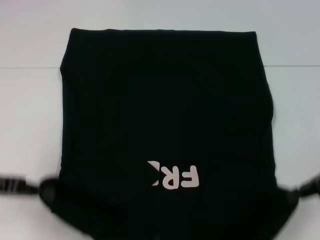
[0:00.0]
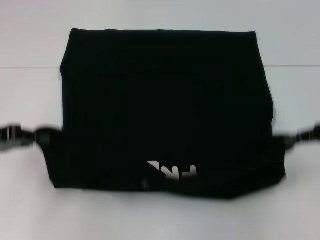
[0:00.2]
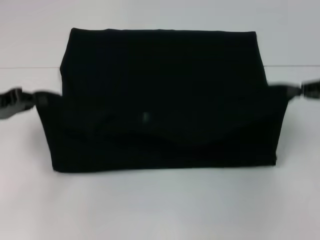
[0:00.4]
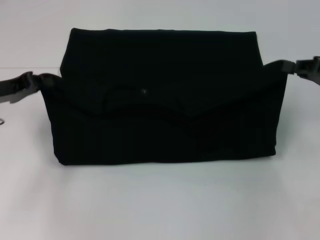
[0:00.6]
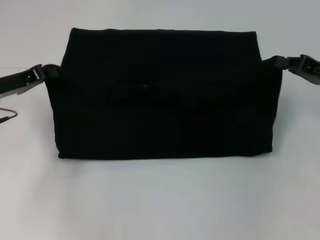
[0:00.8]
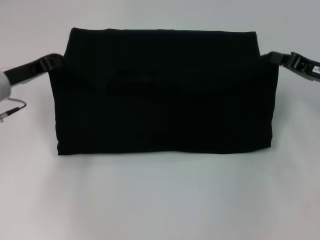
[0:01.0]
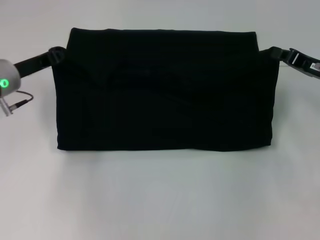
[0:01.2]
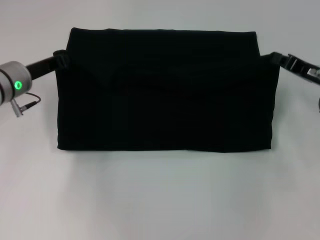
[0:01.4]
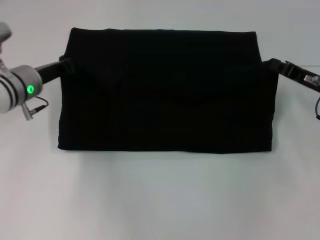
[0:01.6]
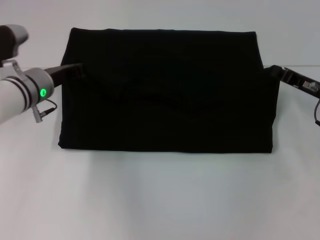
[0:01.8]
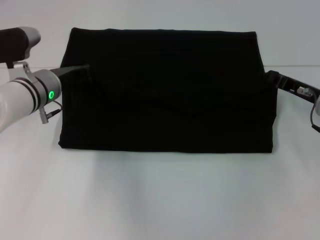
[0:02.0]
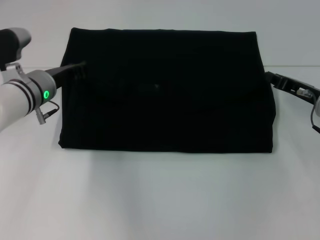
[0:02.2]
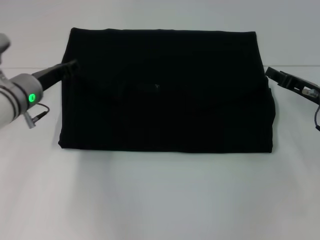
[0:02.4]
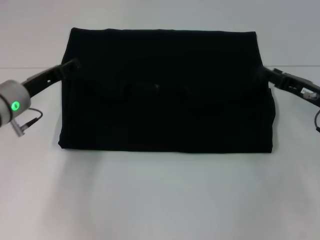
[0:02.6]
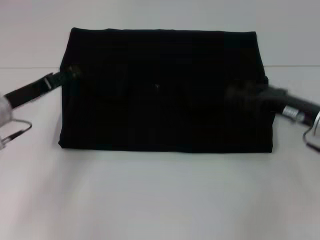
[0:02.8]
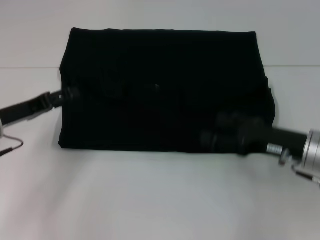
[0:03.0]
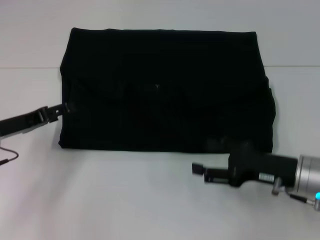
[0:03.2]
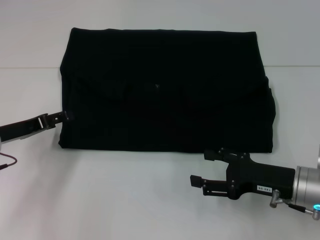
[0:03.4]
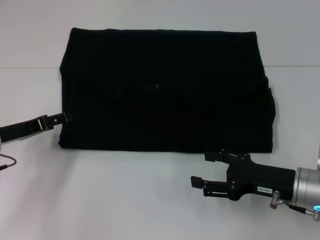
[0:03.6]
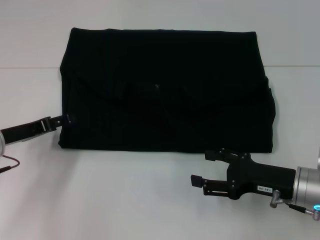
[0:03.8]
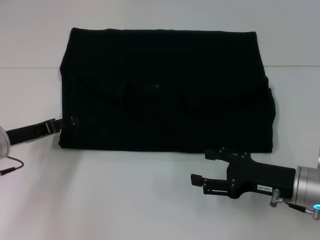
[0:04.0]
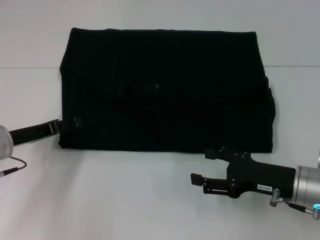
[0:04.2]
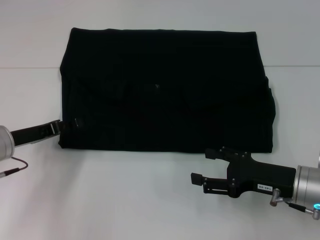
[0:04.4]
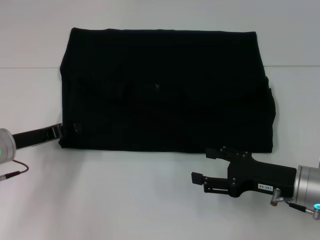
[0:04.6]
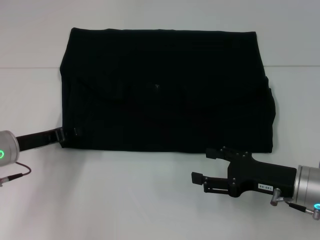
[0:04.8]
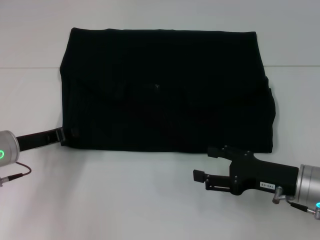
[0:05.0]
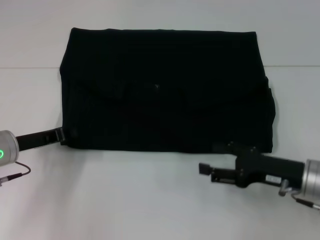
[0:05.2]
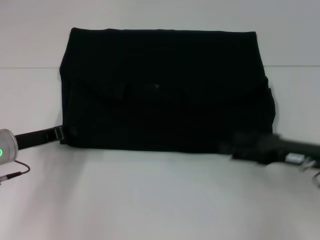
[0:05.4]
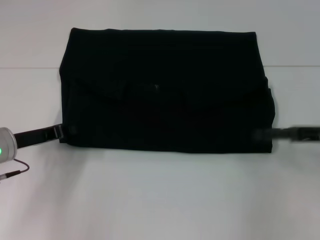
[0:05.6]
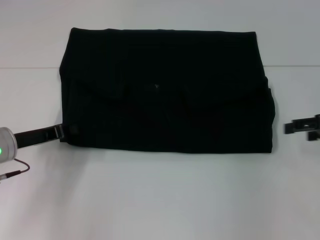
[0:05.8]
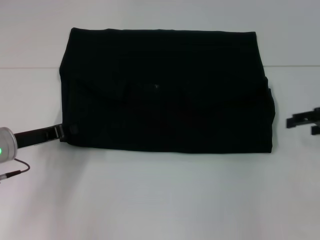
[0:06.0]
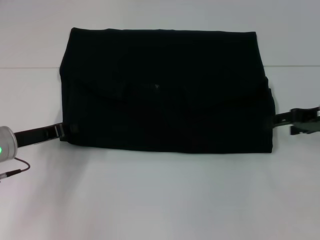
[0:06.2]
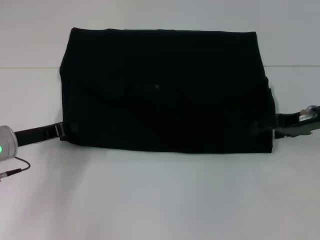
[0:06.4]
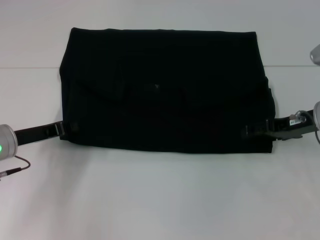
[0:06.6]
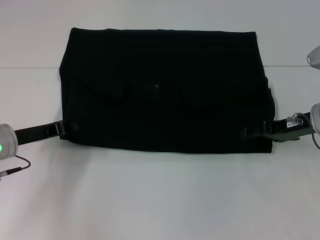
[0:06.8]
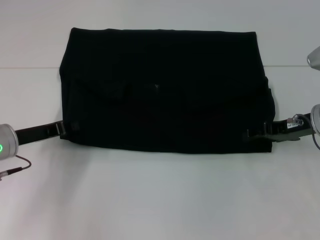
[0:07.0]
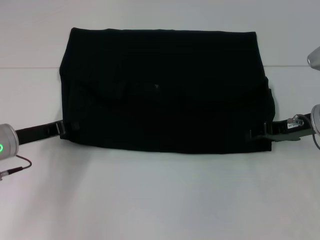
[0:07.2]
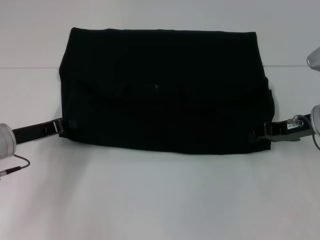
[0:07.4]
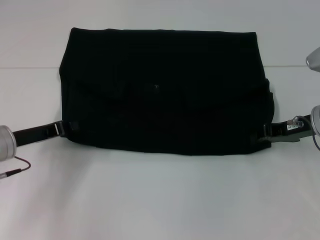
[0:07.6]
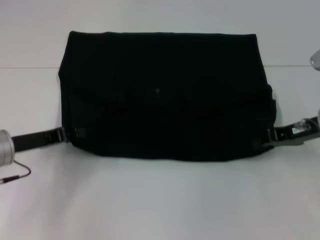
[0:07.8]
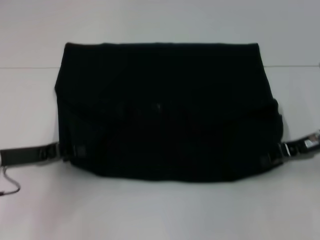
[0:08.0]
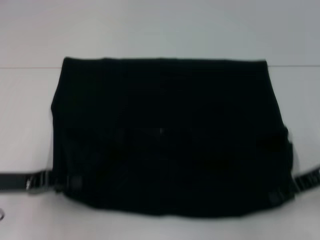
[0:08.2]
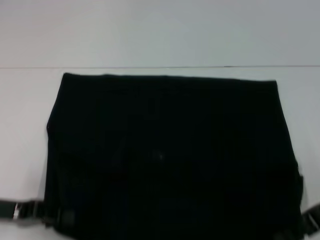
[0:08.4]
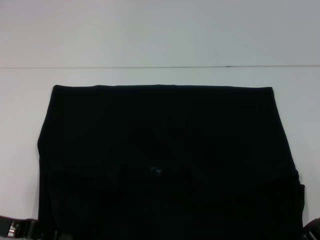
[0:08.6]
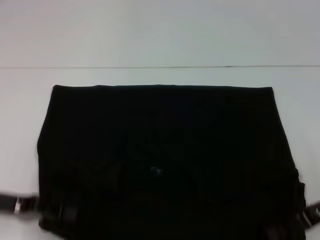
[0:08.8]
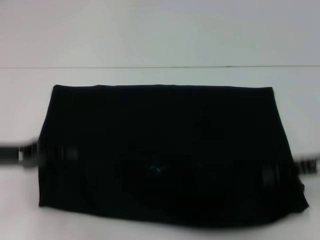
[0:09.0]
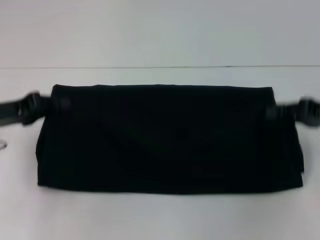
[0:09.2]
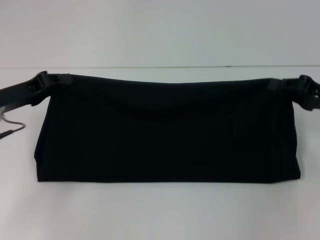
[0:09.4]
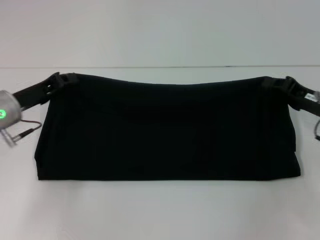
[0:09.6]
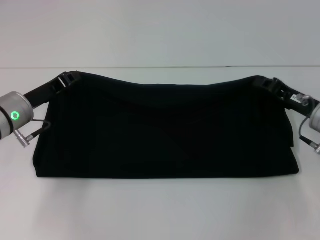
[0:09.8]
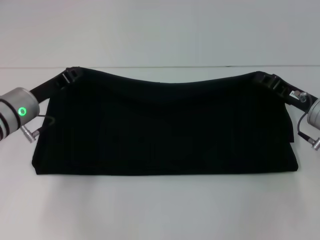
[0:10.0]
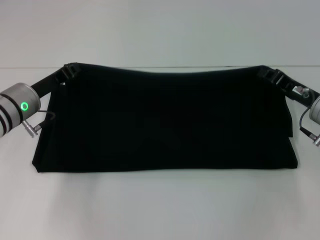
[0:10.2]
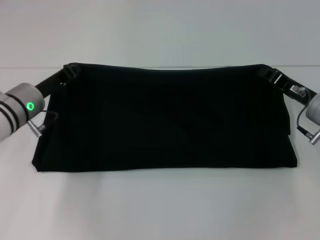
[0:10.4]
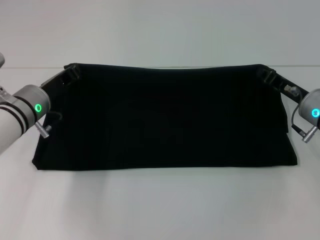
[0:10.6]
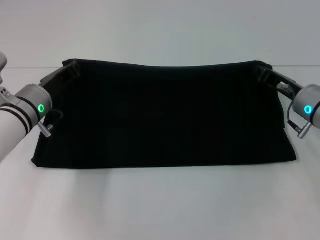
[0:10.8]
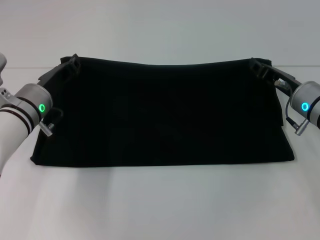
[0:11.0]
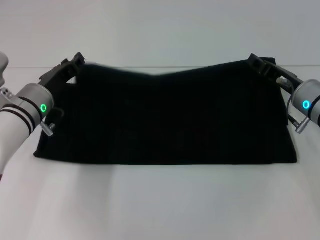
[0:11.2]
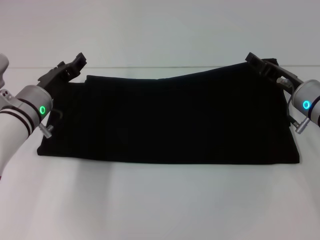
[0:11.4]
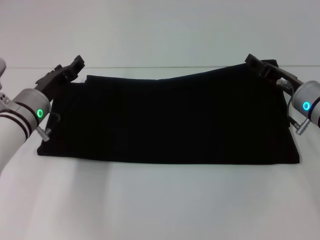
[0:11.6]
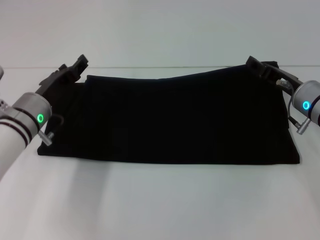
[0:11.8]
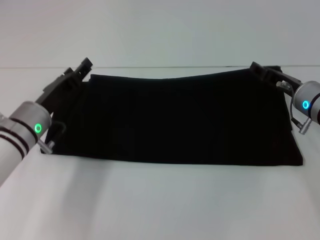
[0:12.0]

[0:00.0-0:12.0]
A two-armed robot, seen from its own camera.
Step, 0.0 to 2.6 s: Fold the clothes with your left hand.
Step, 0.0 to 2.6 s: Fold the clothes with your right hand.
Step, 2.8 to 8.4 s: Pull the clothes with your left hand.
Step, 2.8 to 8.4 s: Pull the clothes with your right hand.
0.0 to 1.6 s: The right gripper goes about 10 cm forward and downward, while the left gripper is displaced forward and to the right by some 15 cm.
1.6 to 3.0 s: The left gripper shifts some 10 cm backward and to the left, and opens its fingers. Meanwhile the right gripper is displaced backward by about 10 cm, and opens its fingers.
3.0 to 4.4 s: There are only small adjustments of the grippers.
4.4 to 6.0 s: The right gripper heads to the right, upward and forward, covering approximately 15 cm. Meanwhile the left gripper closes.
6.0 to 7.6 s: The right gripper travels to the left by roughly 5 cm, and closes up.
7.6 to 9.0 s: The left gripper shifts by some 5 cm. The right gripper moves backward, about 5 cm.
9.0 to 10.4 s: The right gripper moves forward and downward, about 10 cm. Meanwhile the left gripper heads forward and to the right, covering some 10 cm.
10.4 to 12.0 s: The left gripper opens up, while the right gripper opens its fingers.

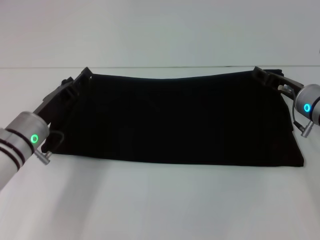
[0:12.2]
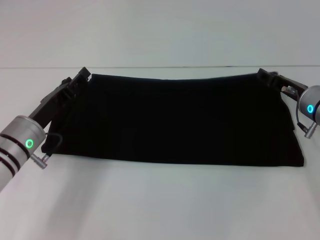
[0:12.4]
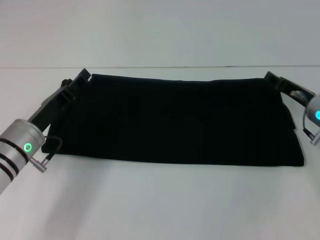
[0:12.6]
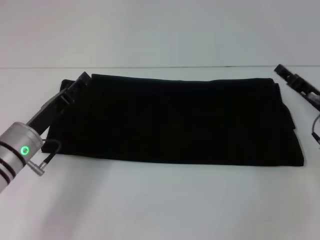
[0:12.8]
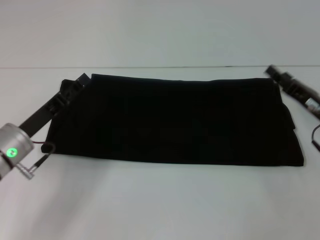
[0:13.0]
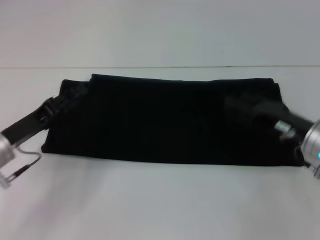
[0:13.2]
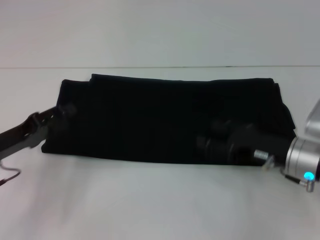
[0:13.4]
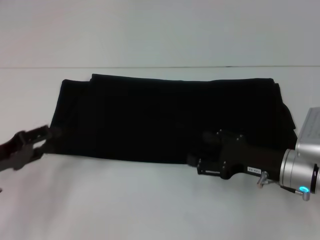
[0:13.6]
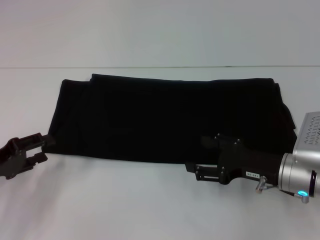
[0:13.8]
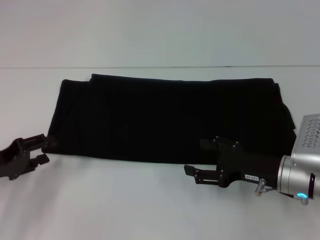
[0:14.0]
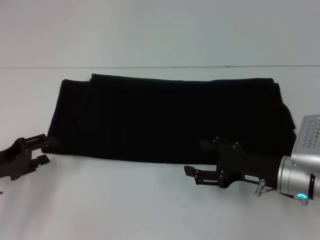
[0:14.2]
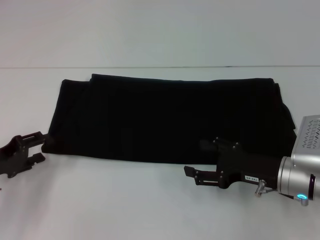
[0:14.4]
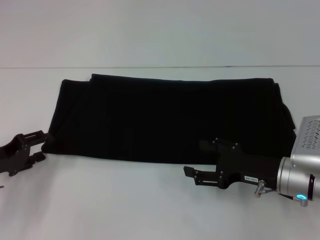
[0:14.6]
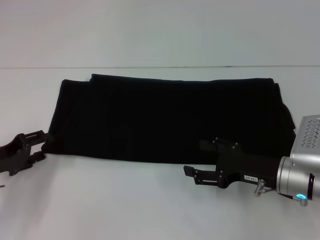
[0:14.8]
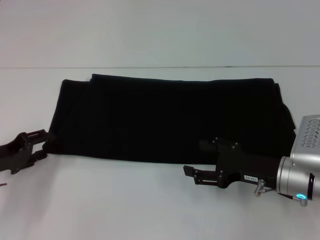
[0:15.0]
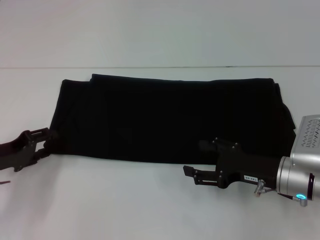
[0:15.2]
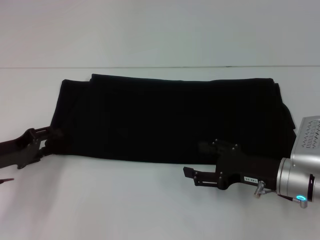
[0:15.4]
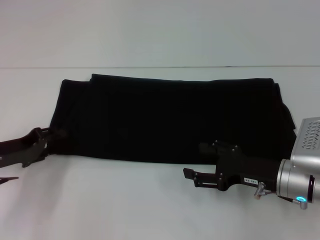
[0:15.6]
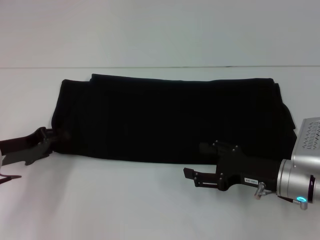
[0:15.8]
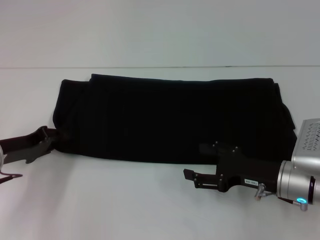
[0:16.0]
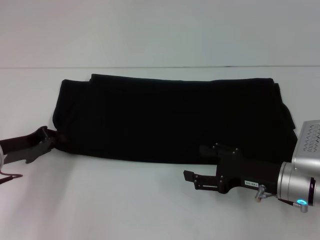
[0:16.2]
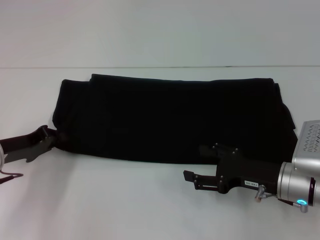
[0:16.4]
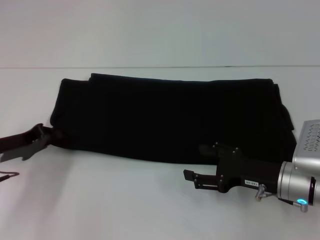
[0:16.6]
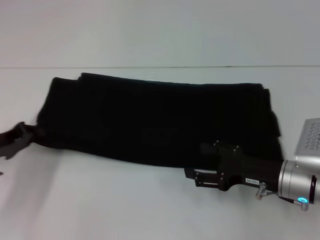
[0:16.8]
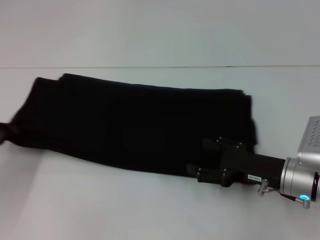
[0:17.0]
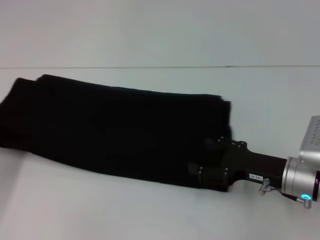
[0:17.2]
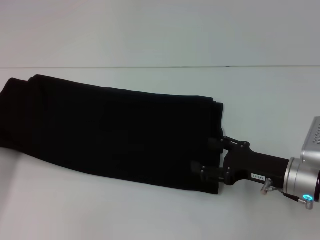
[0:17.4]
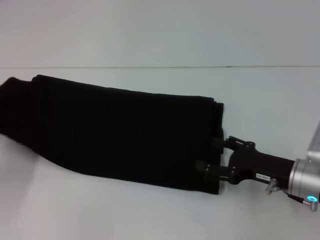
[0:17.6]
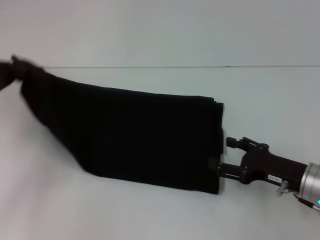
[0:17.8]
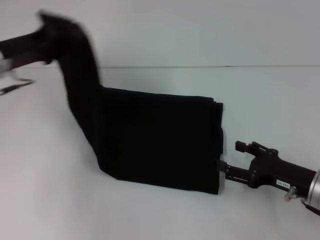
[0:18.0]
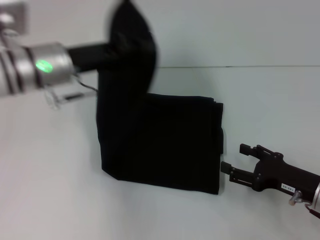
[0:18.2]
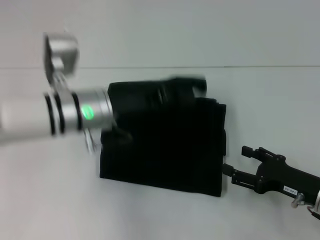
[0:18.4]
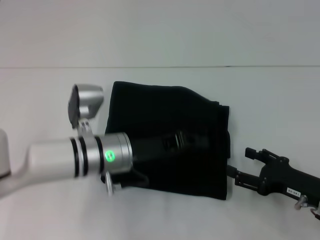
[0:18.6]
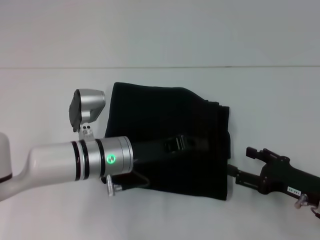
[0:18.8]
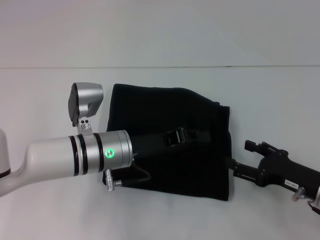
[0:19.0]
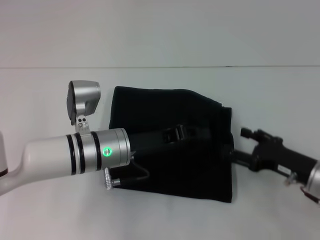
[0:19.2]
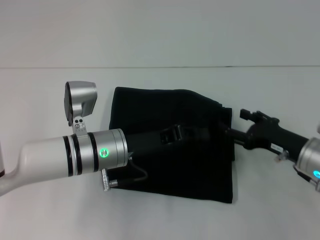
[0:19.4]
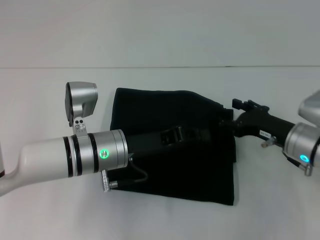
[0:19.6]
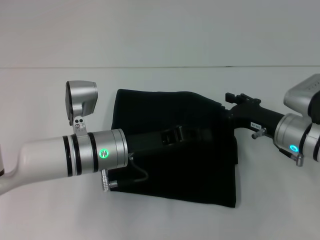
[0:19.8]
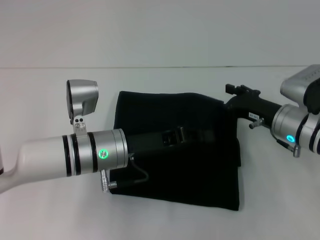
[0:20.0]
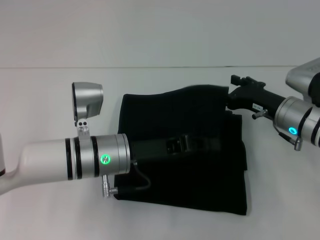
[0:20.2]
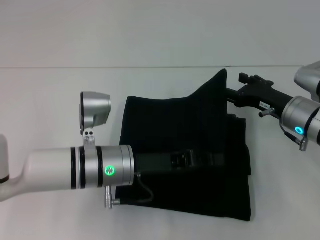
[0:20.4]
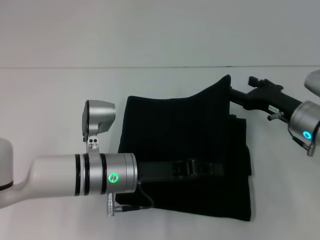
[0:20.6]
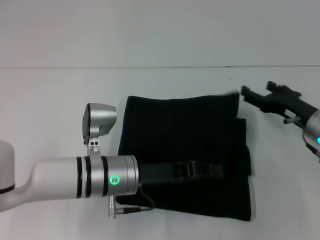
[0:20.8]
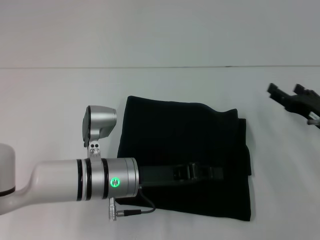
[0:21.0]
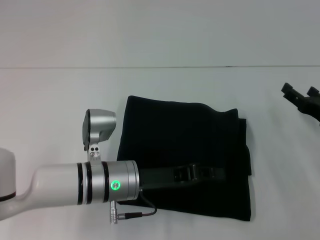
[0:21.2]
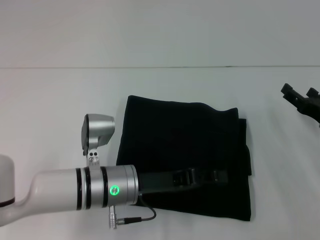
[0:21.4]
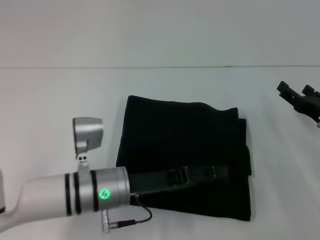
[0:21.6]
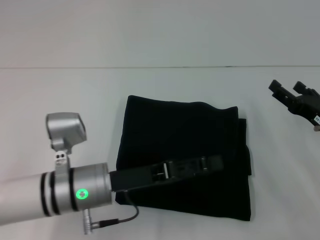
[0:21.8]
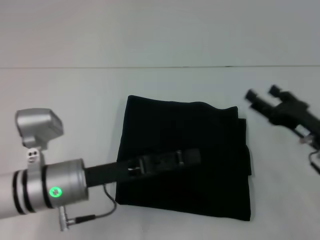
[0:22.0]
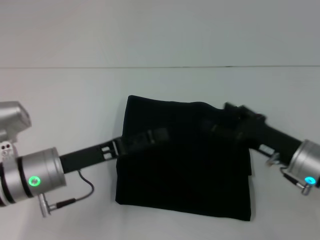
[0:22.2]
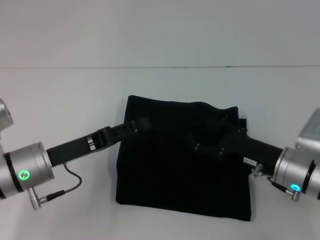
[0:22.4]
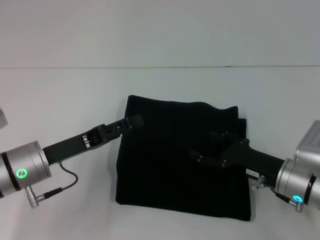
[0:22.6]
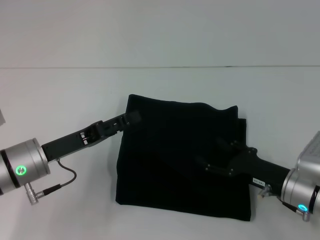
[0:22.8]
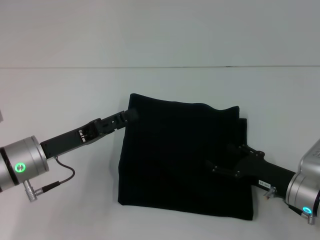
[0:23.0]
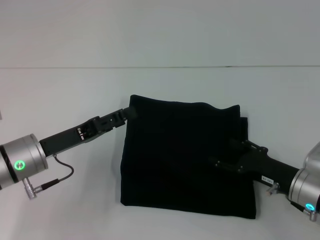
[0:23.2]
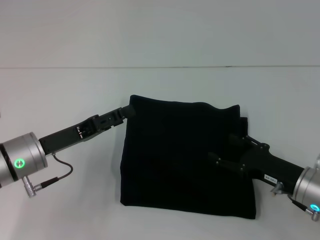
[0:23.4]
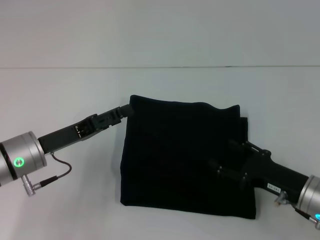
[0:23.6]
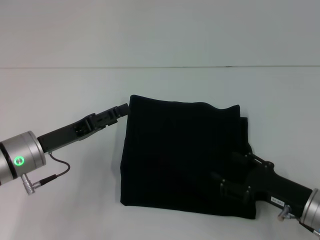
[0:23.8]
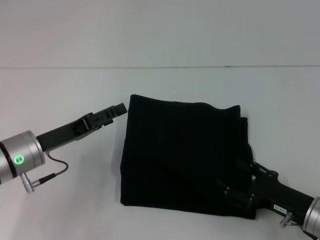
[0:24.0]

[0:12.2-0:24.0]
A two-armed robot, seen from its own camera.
Step, 12.2 to 21.8 s: Fold the clothes with your left hand.
12.2 to 13.6 s: The left gripper moves to the left and backward, approximately 10 cm; the right gripper is displaced backward by roughly 10 cm.
13.6 to 15.2 s: The grippers make only small movements.
15.2 to 16.6 s: The left gripper closes its fingers.
16.6 to 18.2 s: The left gripper travels upward, to the right and forward by about 20 cm. Meanwhile the right gripper shifts some 5 cm to the right.
18.2 to 19.6 s: The right gripper heads forward, covering roughly 5 cm, while the left gripper is displaced downward, to the right and backward by roughly 15 cm.
19.6 to 21.0 s: The right gripper shifts approximately 5 cm to the right.
21.0 to 22.6 s: The left gripper travels to the left by some 10 cm, and opens up. The right gripper goes some 10 cm to the left and backward.
22.6 to 24.0 s: The right gripper shifts about 5 cm backward.
